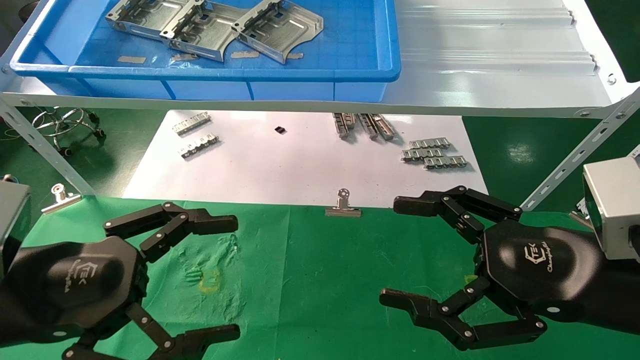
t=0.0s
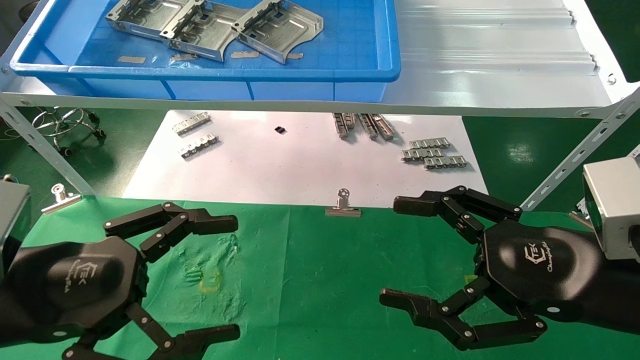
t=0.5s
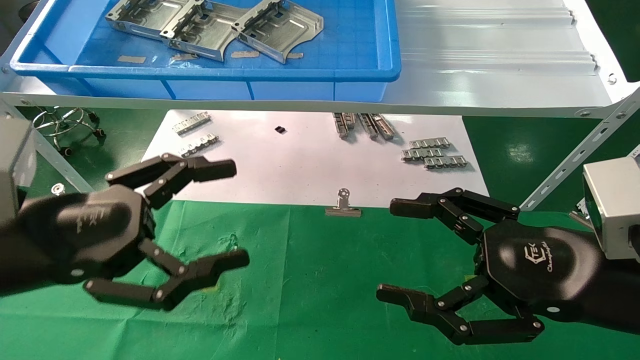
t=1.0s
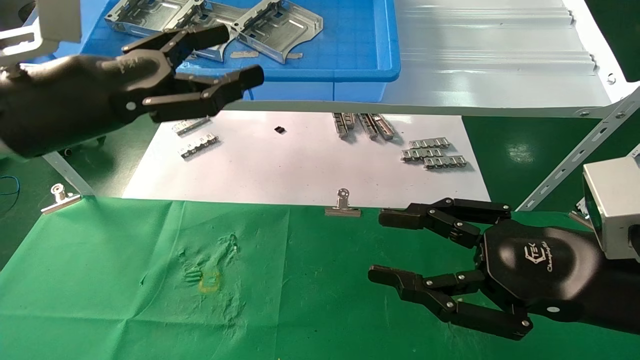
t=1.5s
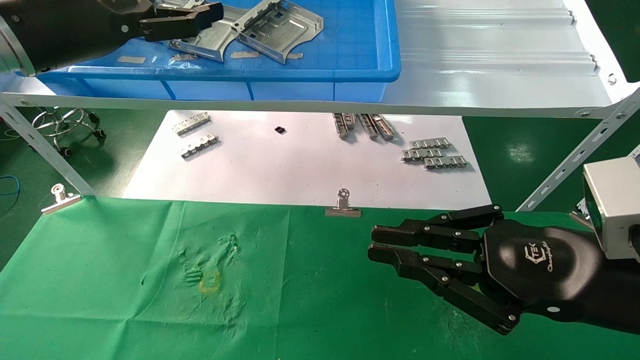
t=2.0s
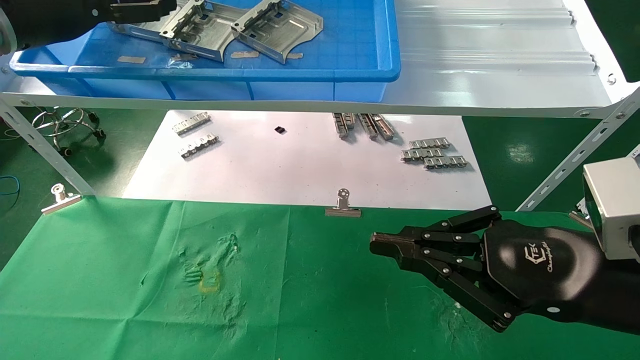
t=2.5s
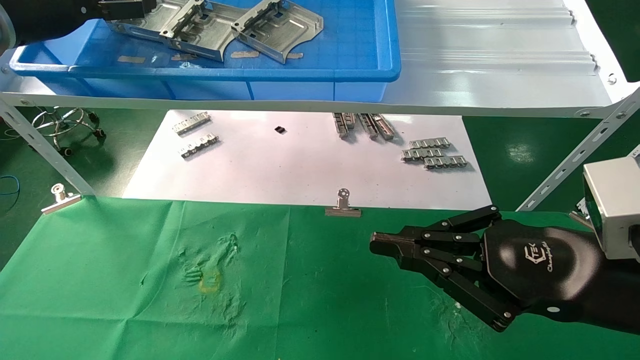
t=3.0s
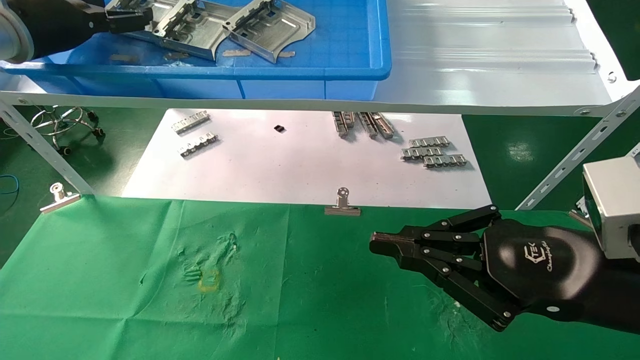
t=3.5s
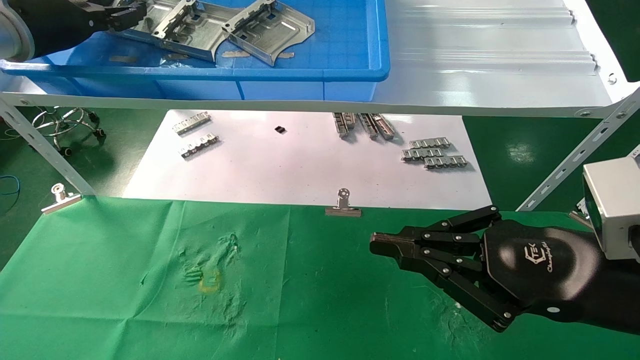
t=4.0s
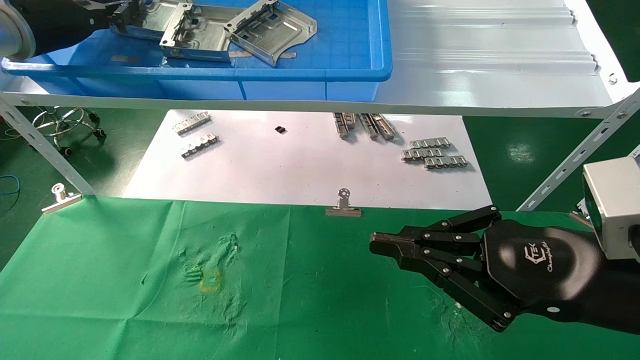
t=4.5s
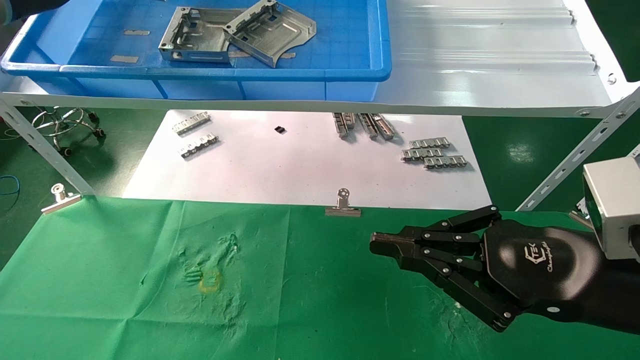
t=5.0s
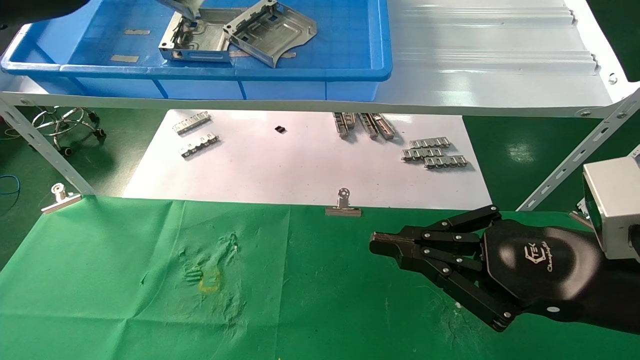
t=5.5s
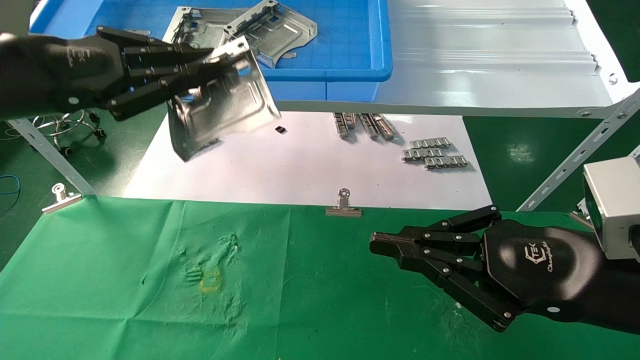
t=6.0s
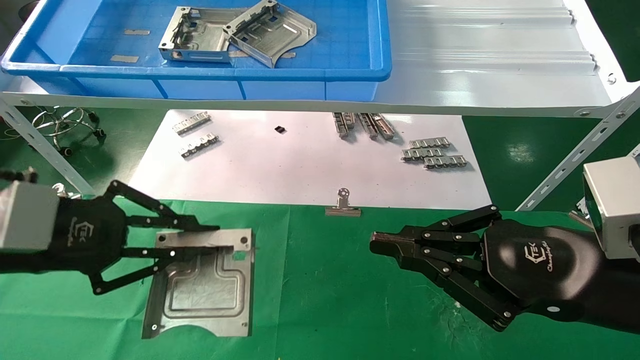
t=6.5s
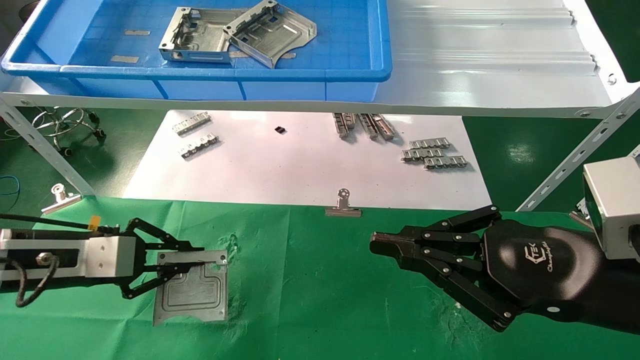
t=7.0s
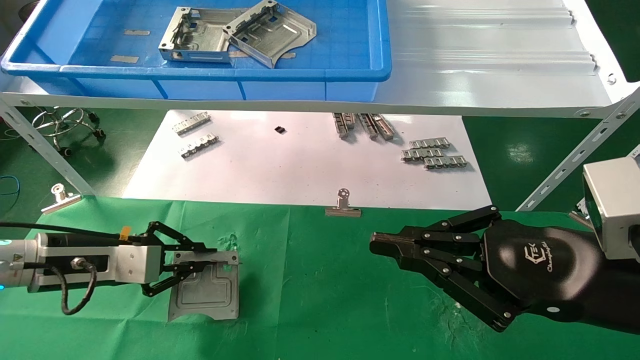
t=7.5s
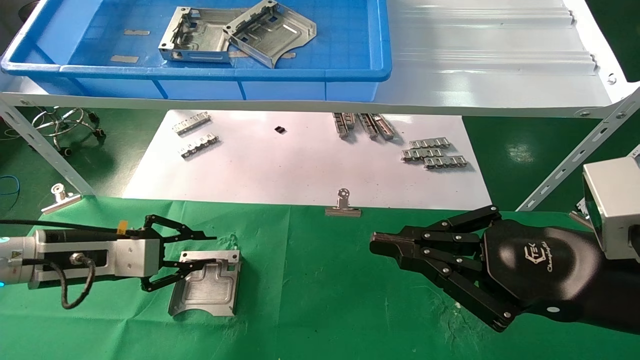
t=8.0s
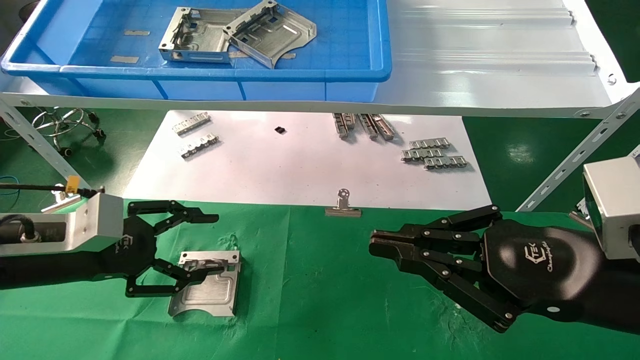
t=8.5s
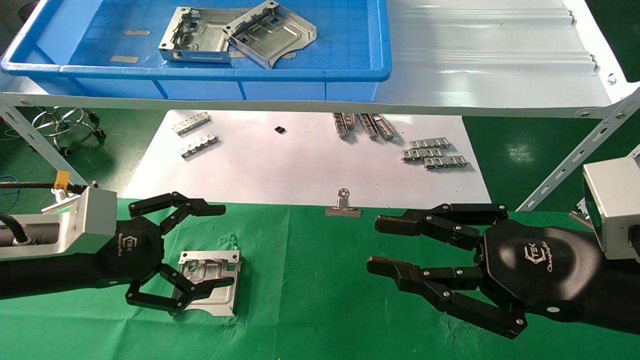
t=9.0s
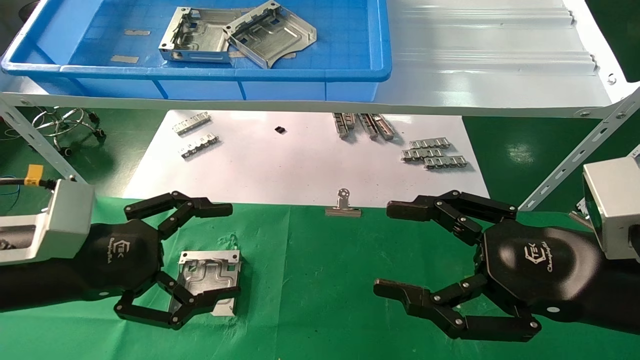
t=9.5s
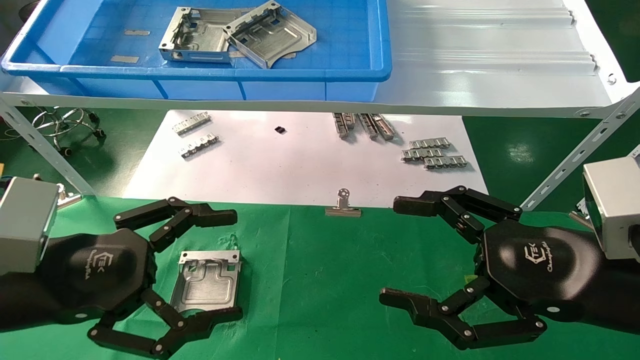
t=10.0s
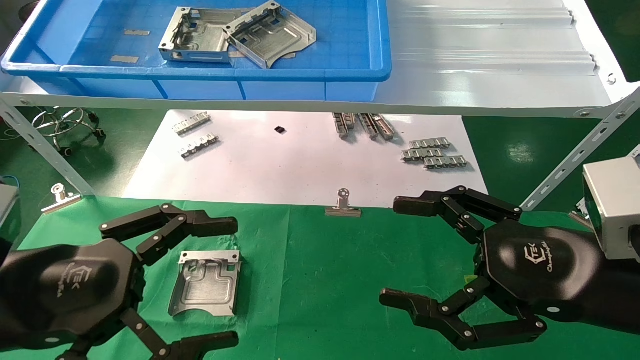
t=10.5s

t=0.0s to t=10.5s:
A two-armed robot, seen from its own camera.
Task of the whole recording: use the mechanical arm to pick up the parts and place them on the table.
Step, t=1.0s to t=4.5s: Pick up the hard drive bracket from the feeding area.
Step, t=5.0s to t=7.5s: Place the hard drive bracket into the box.
t=0.0s to t=2.0s: The left gripper moves upward and forward, approximately 25 cm. The right gripper closes.
t=2.0s to t=4.0s: The left gripper is displaced forward and to the left by roughly 10 cm, and closes.
t=4.0s to t=6.5s: The left gripper travels backward and downward by roughly 25 cm, and closes its fingers.
t=6.5s to t=8.5s: The left gripper shifts approximately 5 cm downward, and opens up.
t=8.5s to t=10.5s: The left gripper heads backward, covering some 10 cm, and opens its fingers. Meanwhile the right gripper opens up.

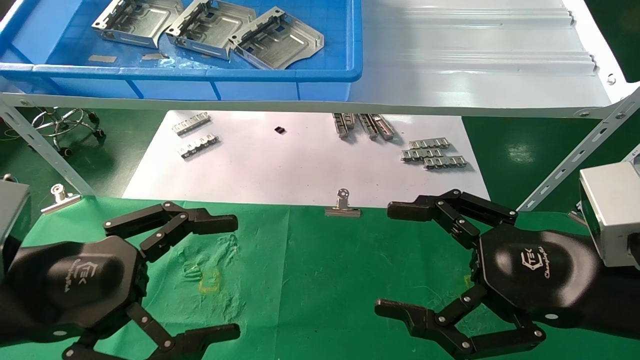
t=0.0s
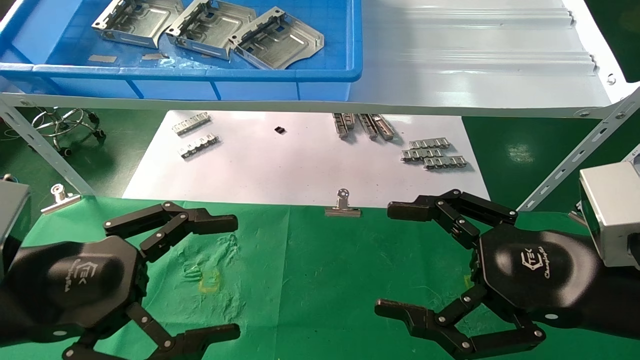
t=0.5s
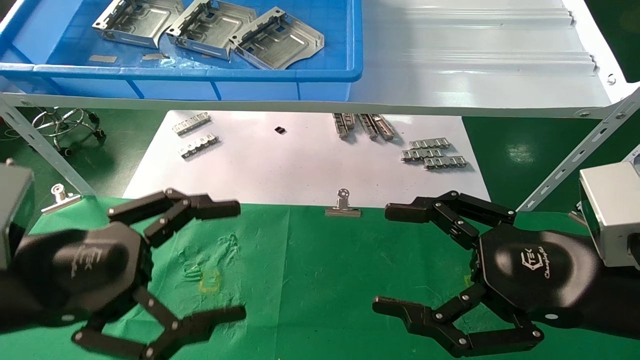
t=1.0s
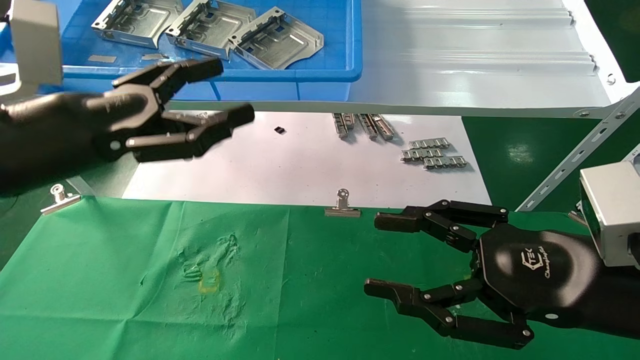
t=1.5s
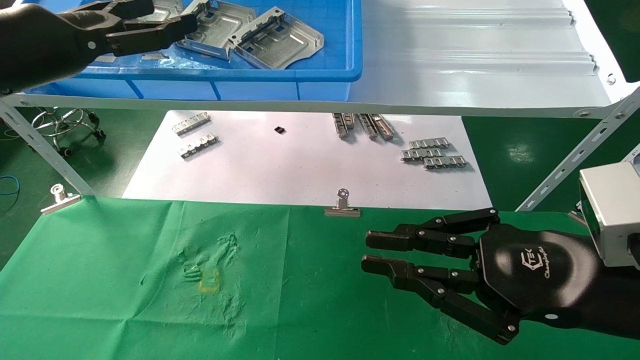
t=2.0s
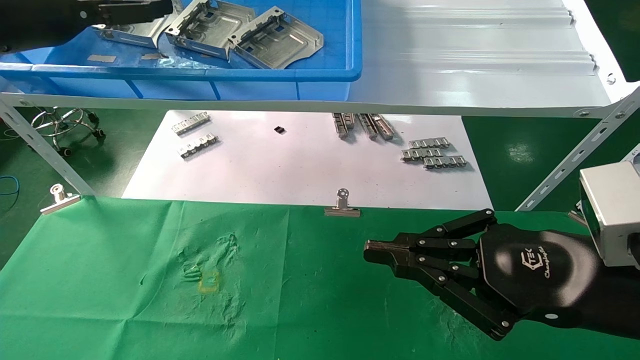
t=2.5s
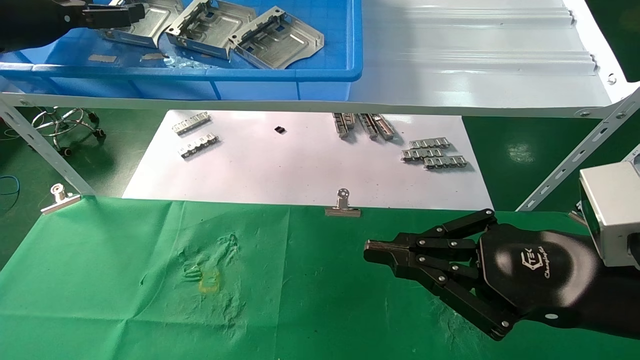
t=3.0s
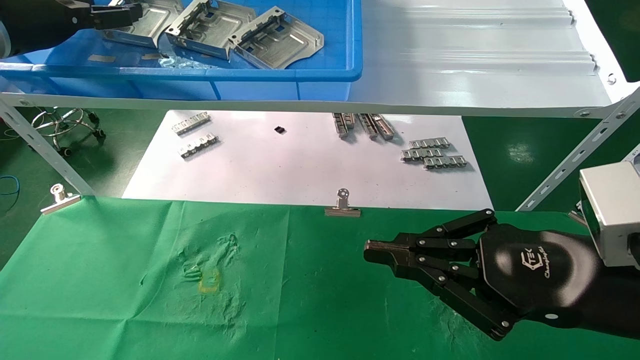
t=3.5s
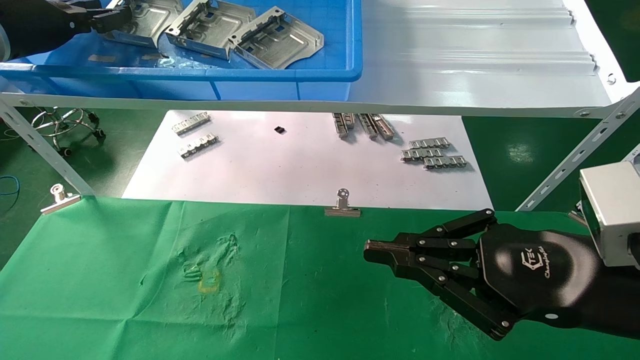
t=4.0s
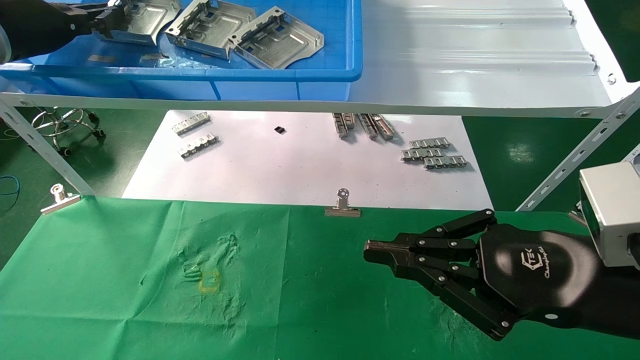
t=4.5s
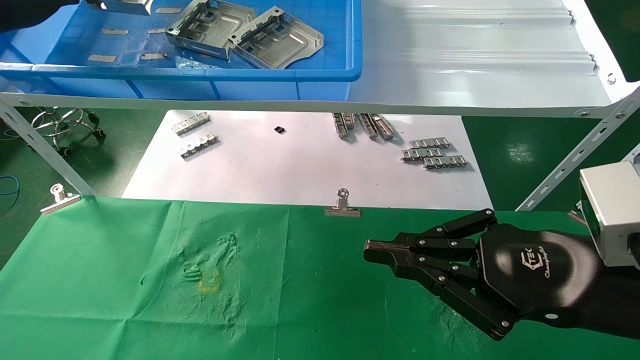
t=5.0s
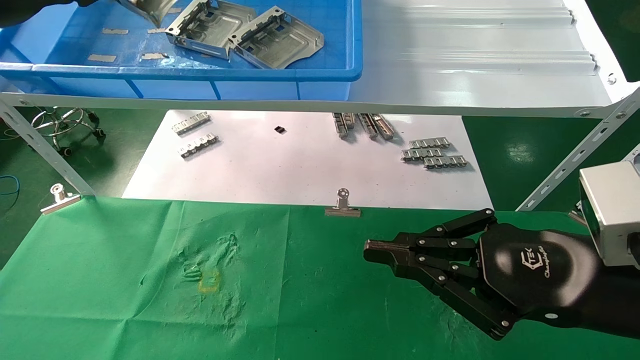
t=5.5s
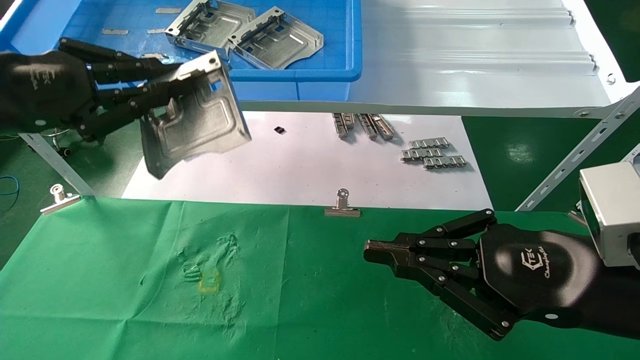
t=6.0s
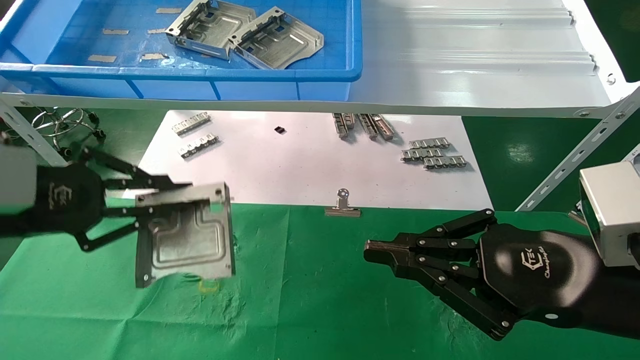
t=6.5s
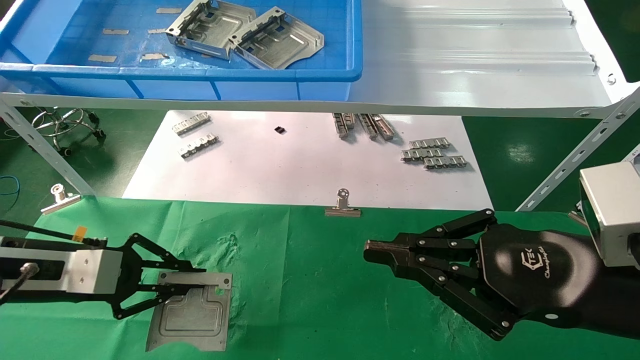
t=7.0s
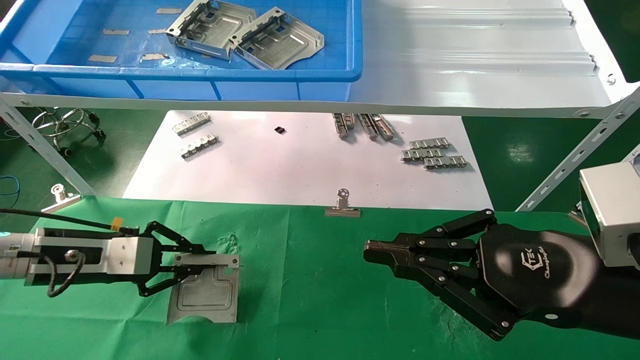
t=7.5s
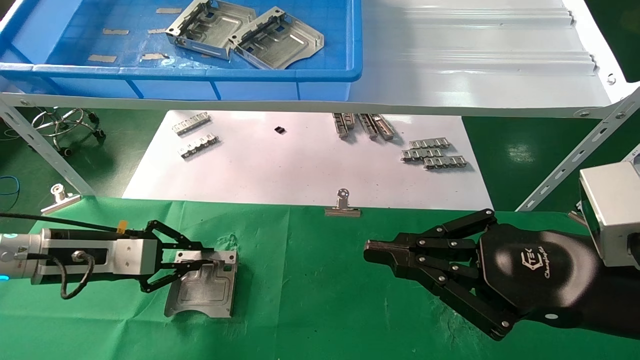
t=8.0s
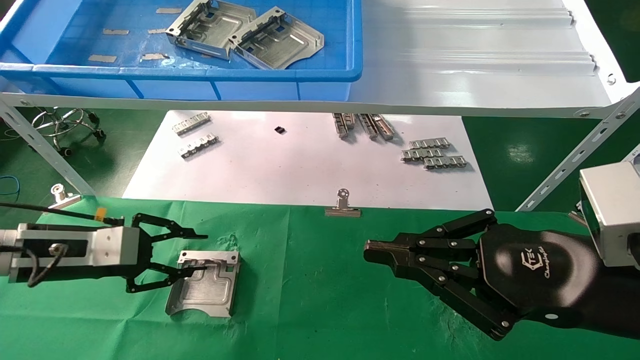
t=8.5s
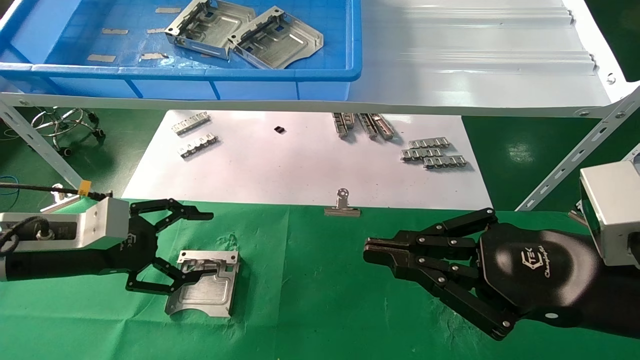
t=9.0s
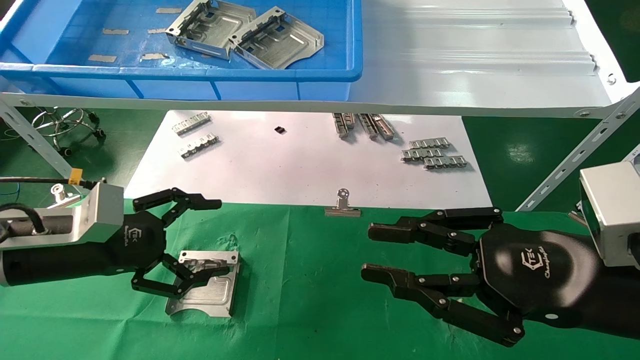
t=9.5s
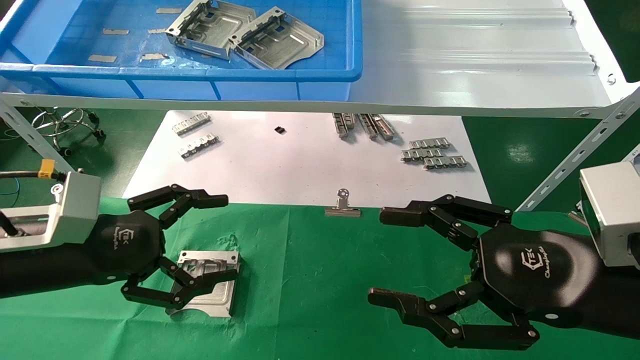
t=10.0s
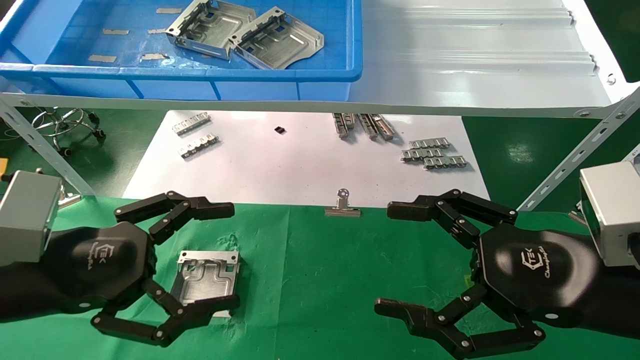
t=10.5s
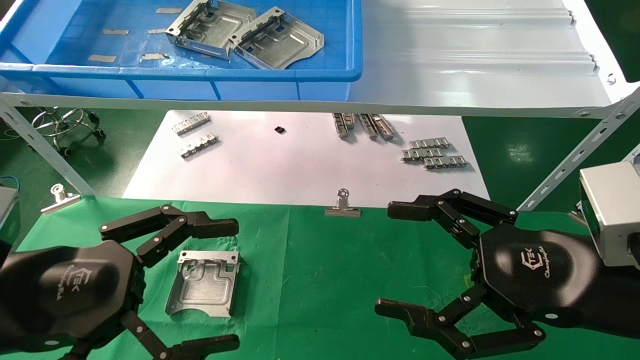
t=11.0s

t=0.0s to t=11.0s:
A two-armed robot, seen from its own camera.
Task of the whole recording: use the mechanical arm to pick up the parts and place them on the table.
Step, t=1.5s to t=4.5s: Pick up the hard drive bracket from the feeding area.
Step, t=5.0s to t=8.0s: Place the hard drive bracket into the box.
t=0.0s to t=2.0s: The right gripper closes its fingers. Meanwhile the left gripper travels upward and forward by approximately 25 cm.
t=2.0s to t=3.5s: The left gripper is displaced forward and to the left by some 10 cm.
t=3.5s to t=5.5s: The left gripper shifts approximately 10 cm backward, and closes up.
t=5.5s to t=7.5s: The left gripper goes about 25 cm downward.
t=7.5s to t=9.0s: The left gripper opens.
t=9.0s to t=11.0s: The right gripper opens its fingers. Meanwhile the left gripper is displaced backward and to the right by some 15 cm.
